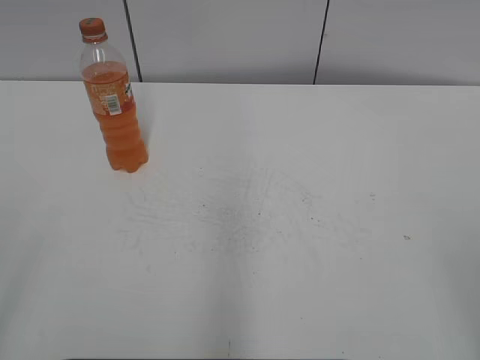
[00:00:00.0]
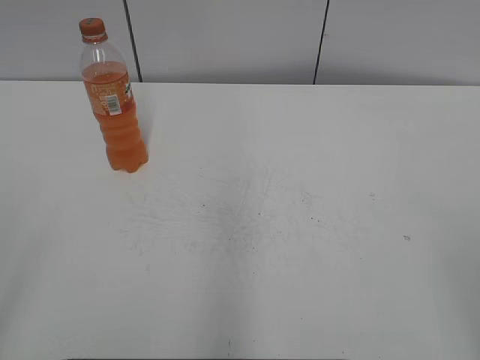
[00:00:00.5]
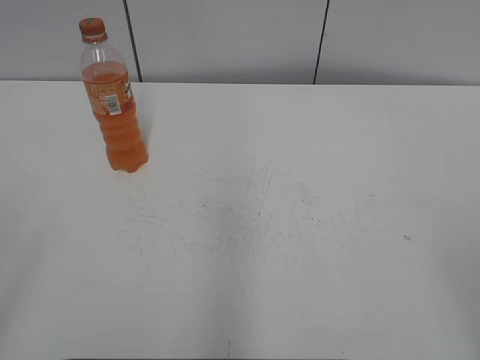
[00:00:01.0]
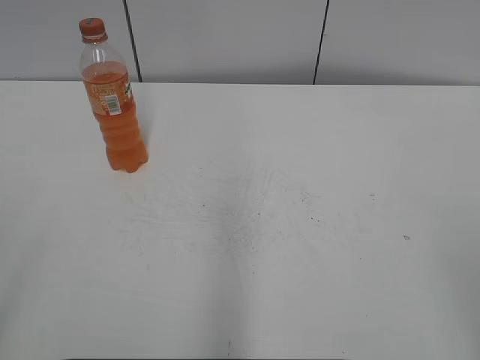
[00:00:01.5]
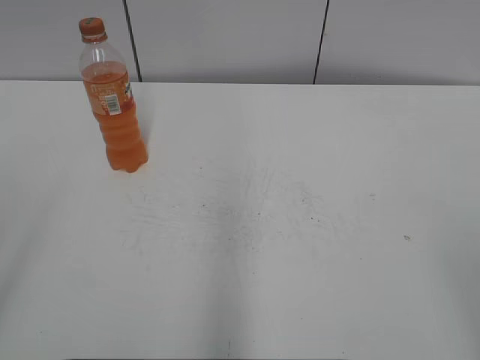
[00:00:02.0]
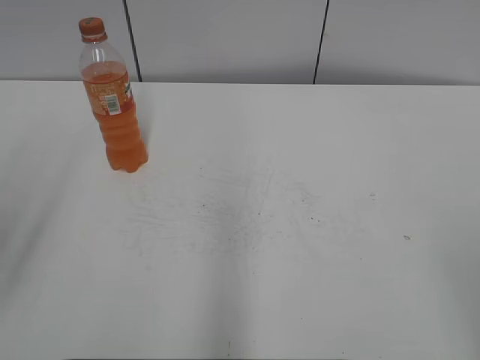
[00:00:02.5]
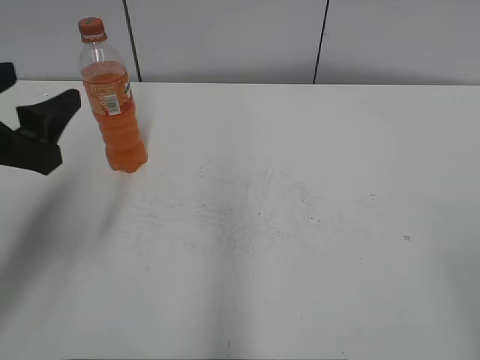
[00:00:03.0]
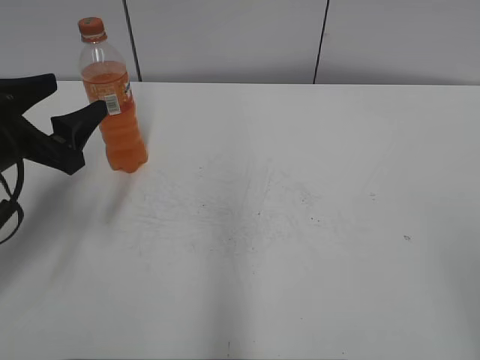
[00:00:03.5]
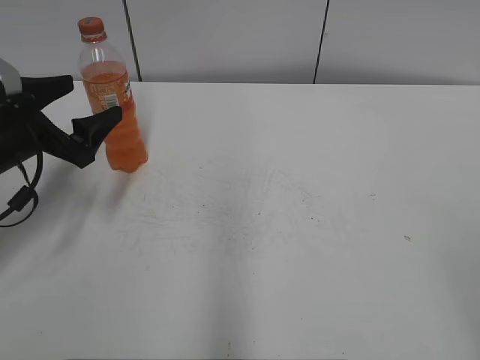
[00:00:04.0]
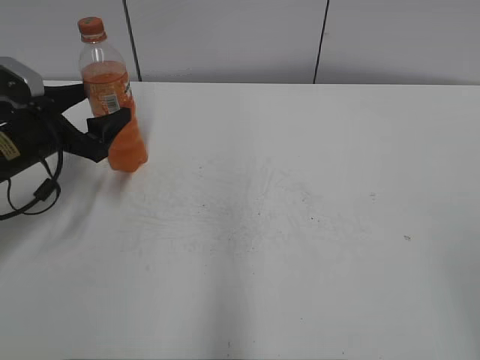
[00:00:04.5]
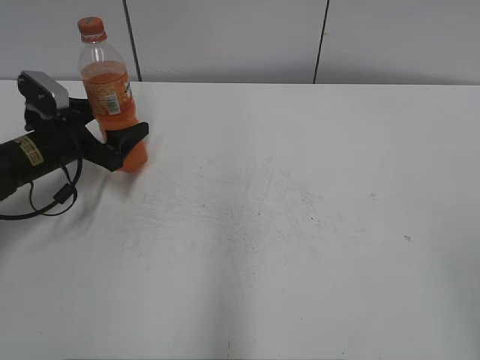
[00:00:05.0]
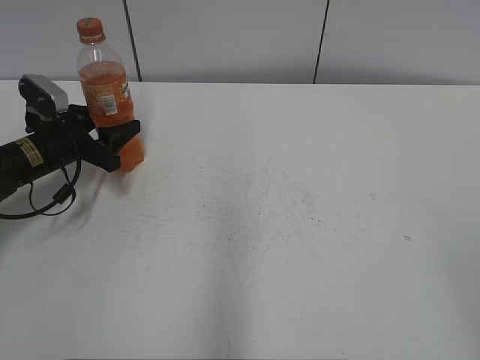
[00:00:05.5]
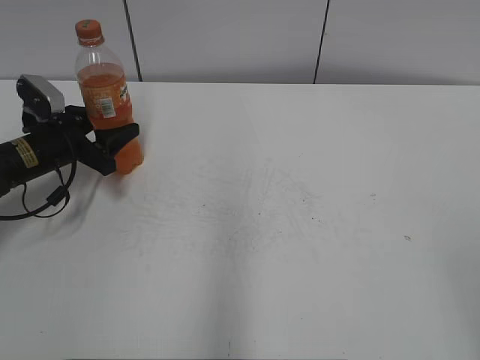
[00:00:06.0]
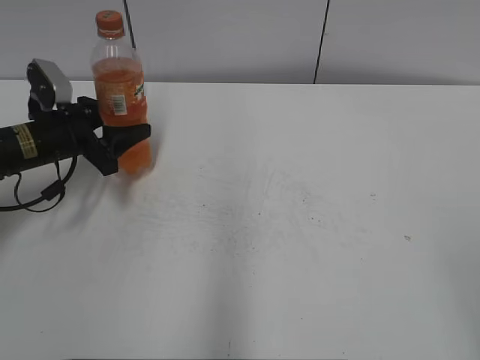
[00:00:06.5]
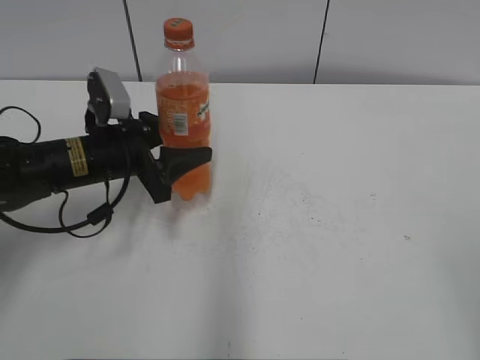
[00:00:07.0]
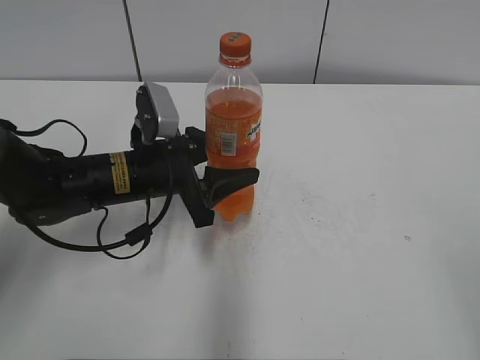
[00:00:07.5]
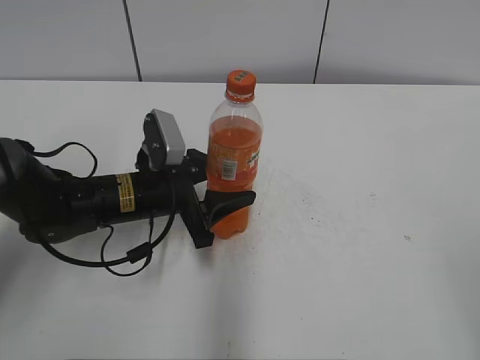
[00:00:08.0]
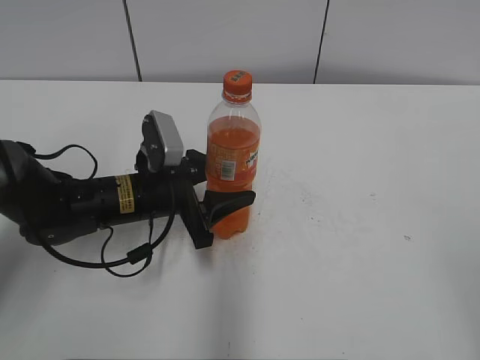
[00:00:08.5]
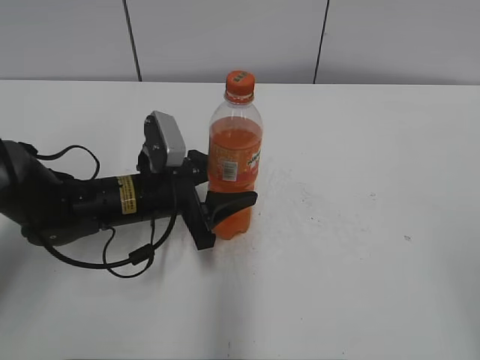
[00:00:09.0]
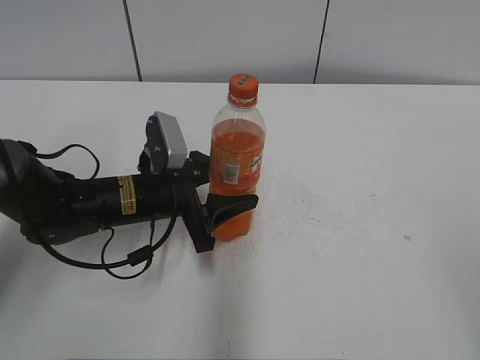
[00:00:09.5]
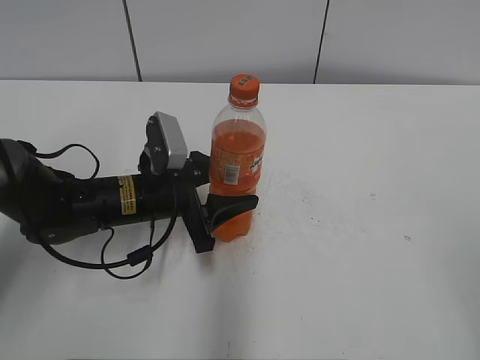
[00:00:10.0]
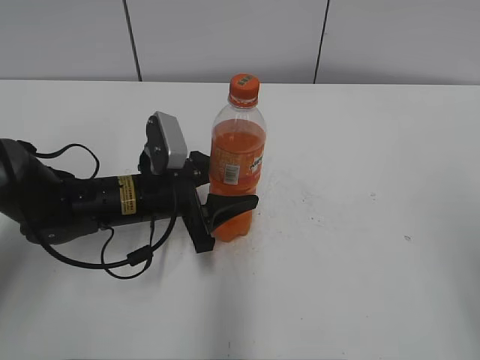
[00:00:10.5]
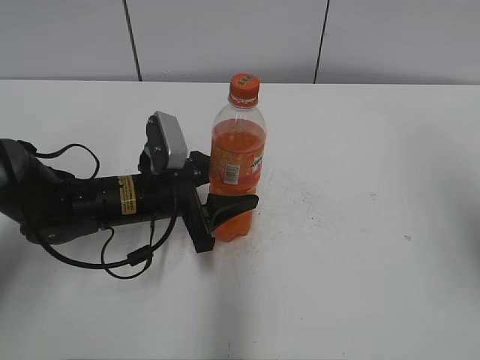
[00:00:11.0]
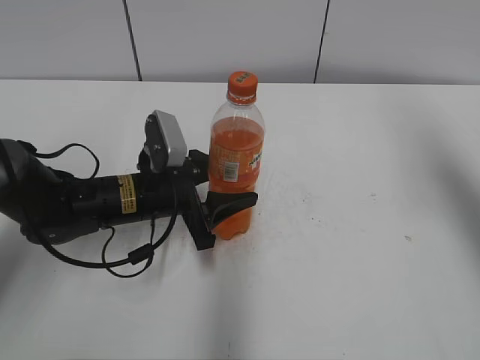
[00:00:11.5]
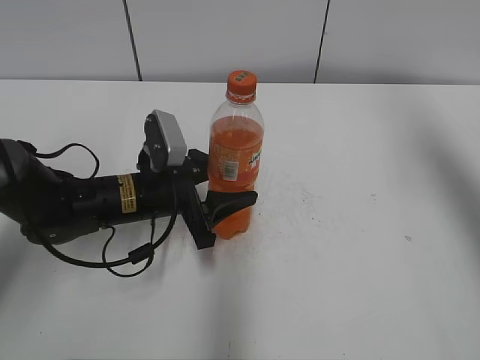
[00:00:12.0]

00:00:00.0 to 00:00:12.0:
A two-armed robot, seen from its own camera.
Step, 00:00:00.0 to 00:00:05.5: Grab the Mirinda with the left hand.
Step, 00:00:06.0 to 00:00:08.5: Move the Mirinda from left to right.
00:00:02.0 to 00:00:04.0: The left gripper heads forward and downward, covering roughly 35 cm, and opens.
00:00:04.0 to 00:00:06.0: The left gripper travels forward and downward by about 10 cm, and closes.
00:00:06.0 to 00:00:08.0: The left gripper shifts some 15 cm to the right and backward.
00:00:08.0 to 00:00:10.0: Both grippers stay about where they are.
00:00:10.0 to 00:00:12.0: The right gripper goes about 35 cm forward.

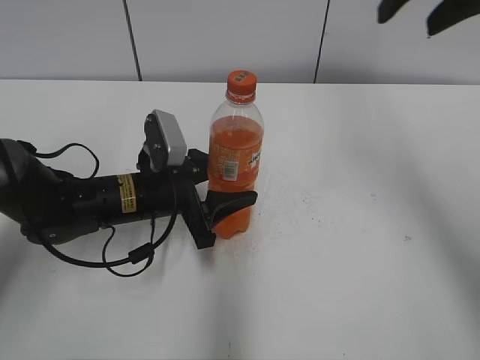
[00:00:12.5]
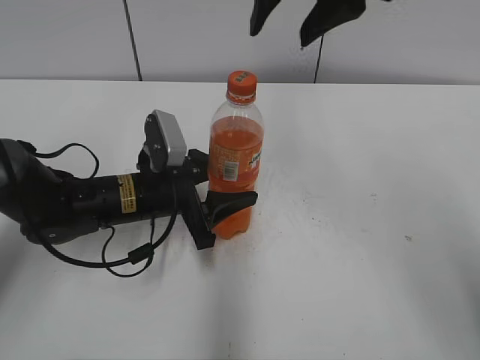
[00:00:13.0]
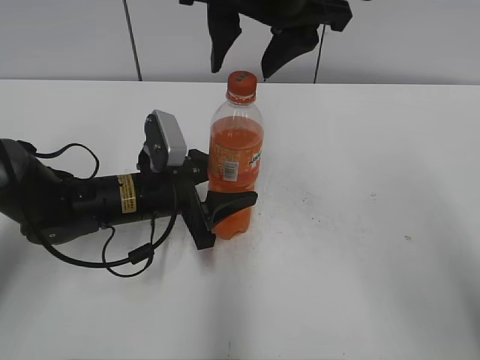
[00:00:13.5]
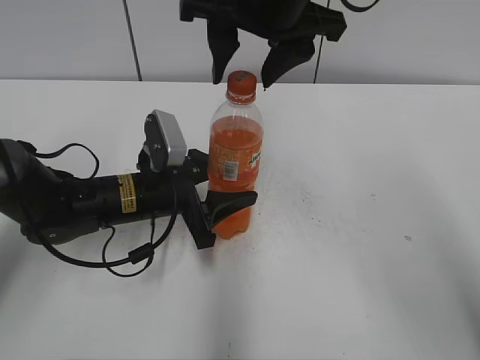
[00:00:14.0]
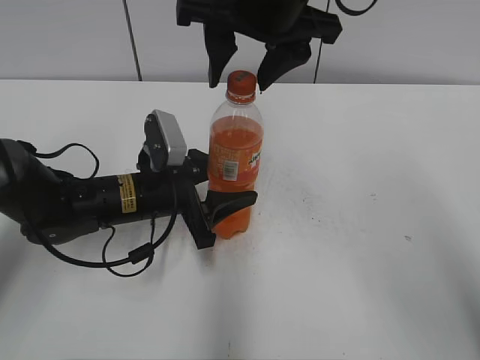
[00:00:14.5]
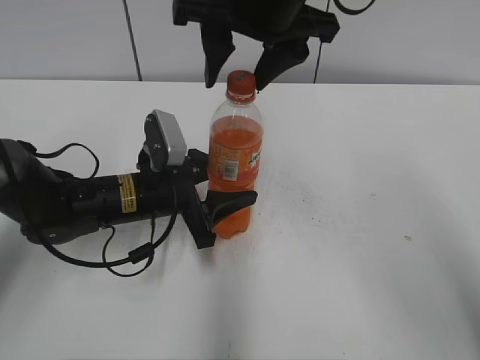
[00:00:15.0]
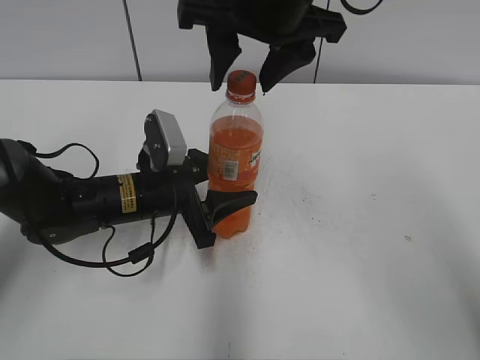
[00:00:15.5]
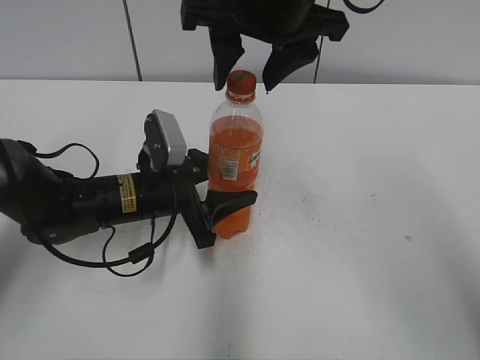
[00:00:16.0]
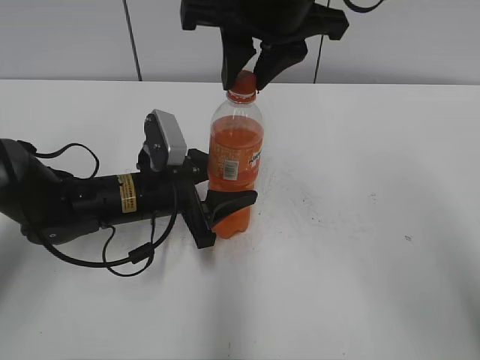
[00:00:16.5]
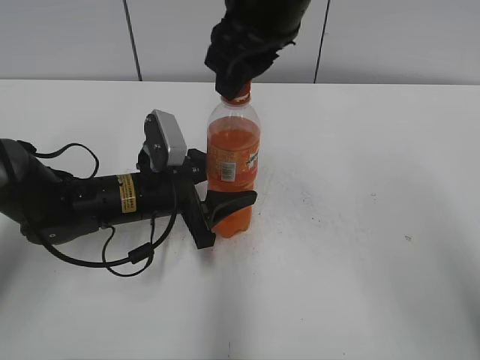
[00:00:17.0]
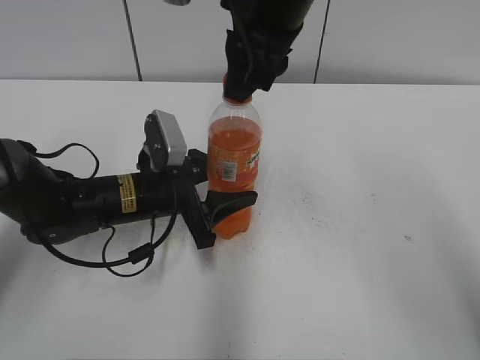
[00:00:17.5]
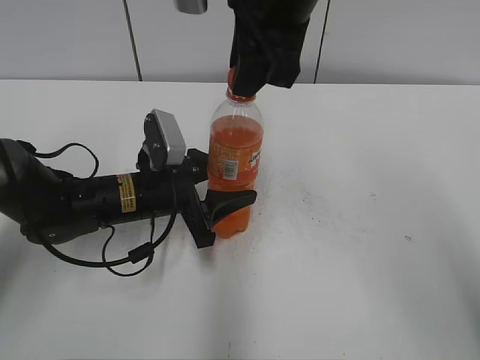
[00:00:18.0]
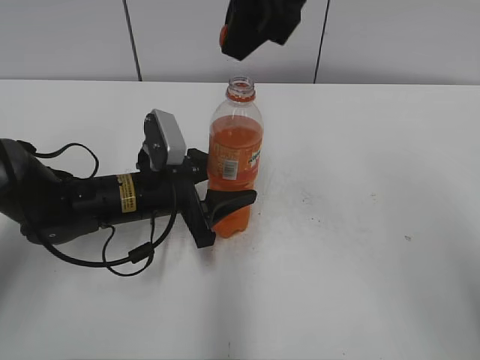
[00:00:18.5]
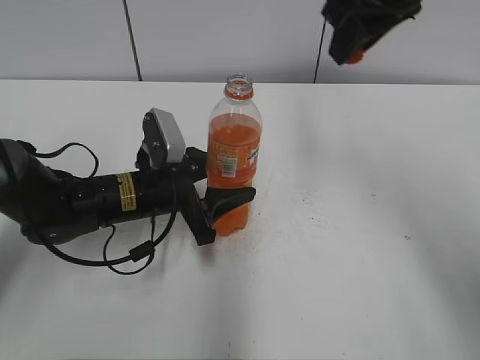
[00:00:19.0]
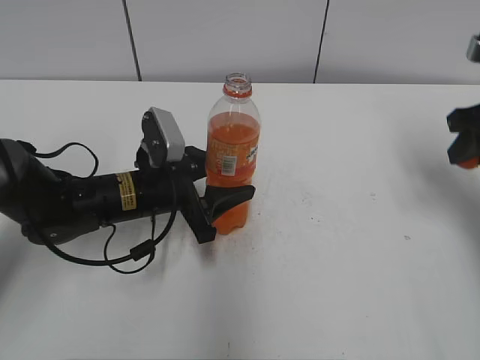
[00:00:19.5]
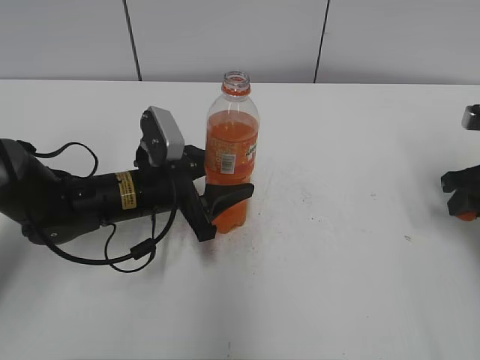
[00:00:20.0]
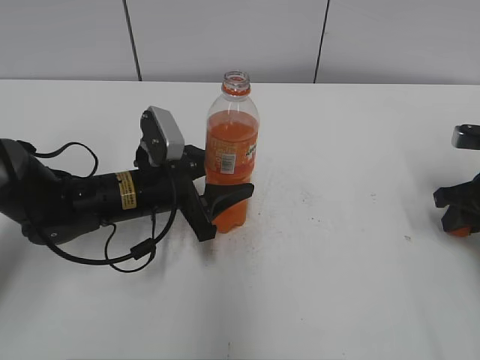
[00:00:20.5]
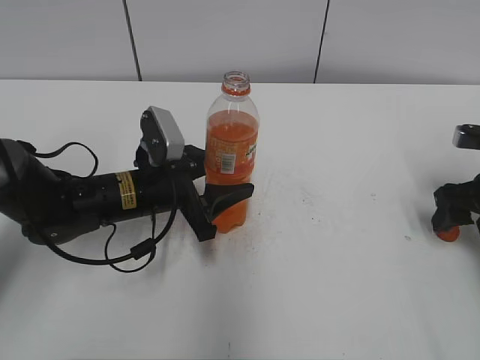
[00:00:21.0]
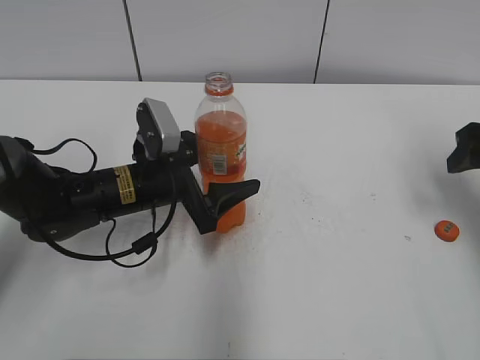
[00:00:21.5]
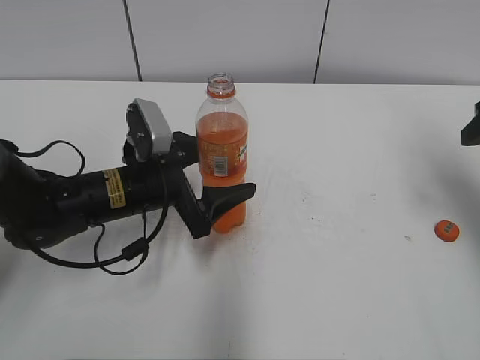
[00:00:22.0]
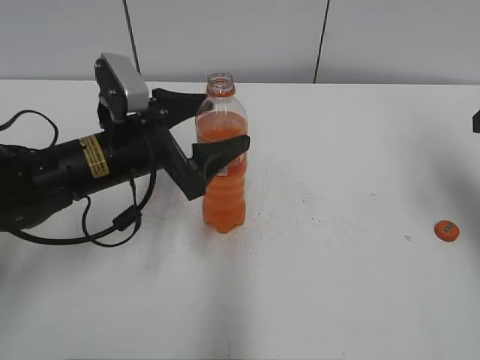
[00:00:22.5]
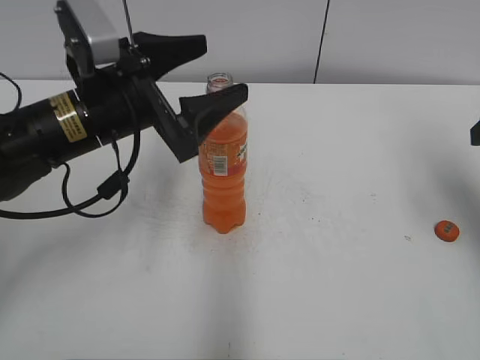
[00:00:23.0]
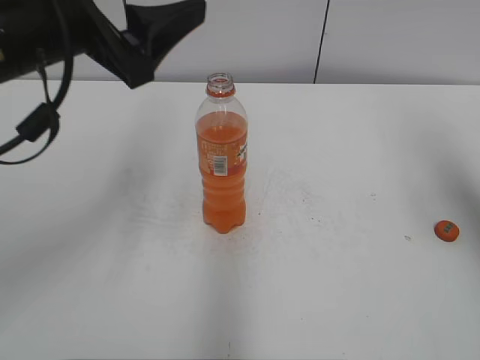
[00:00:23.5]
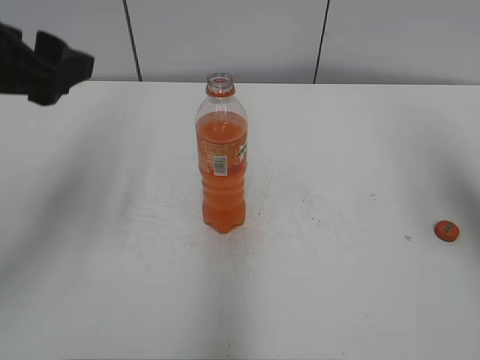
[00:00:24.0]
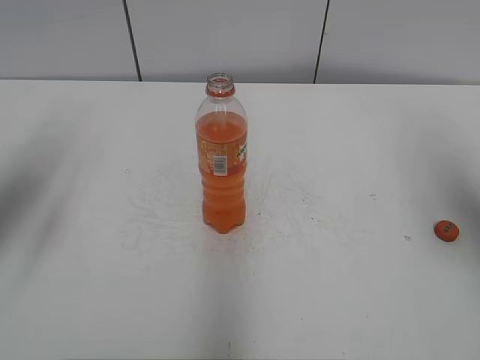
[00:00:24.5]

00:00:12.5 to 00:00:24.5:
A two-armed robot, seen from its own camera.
Step, 00:00:12.5 to 00:00:18.0: Twist the bottle cap with the right hand.
Step, 00:00:18.5 to 00:00:20.5: Place the bottle cap on the right.
00:00:12.5 to 00:00:14.5: The right gripper is displaced to the left by approximately 15 cm.
00:00:14.5 to 00:00:16.5: The right gripper closes up.
00:00:18.5 to 00:00:20.5: The right gripper heads to the right and downward, covering approximately 40 cm.
00:00:20.5 to 00:00:22.5: The left gripper shifts roughly 5 cm upward, and opens its fingers; the right gripper travels upward by approximately 15 cm, and opens.
00:00:22.5 to 00:00:24.5: The left gripper moves to the left and upward, roughly 20 cm, while the right gripper heads upward, covering approximately 5 cm.

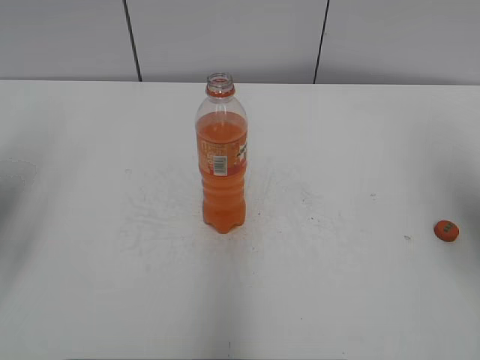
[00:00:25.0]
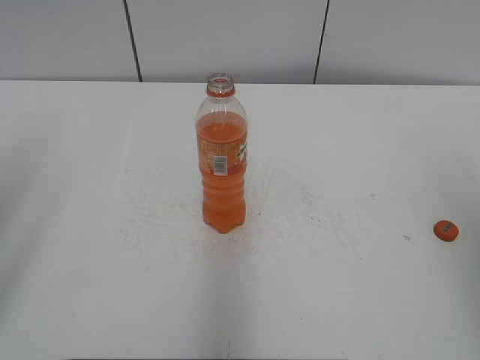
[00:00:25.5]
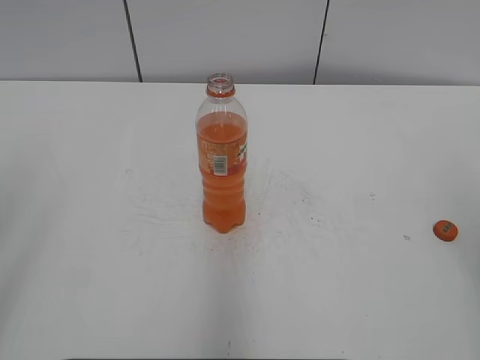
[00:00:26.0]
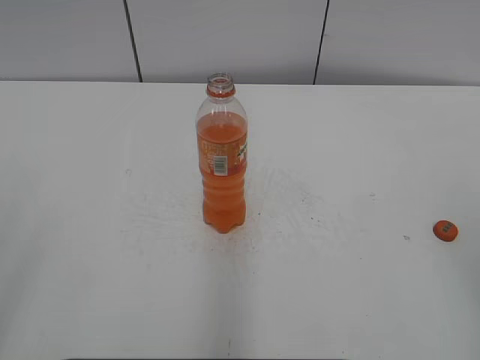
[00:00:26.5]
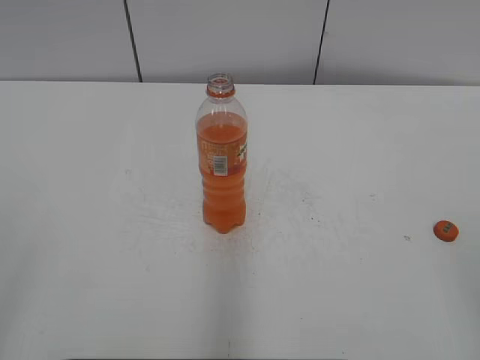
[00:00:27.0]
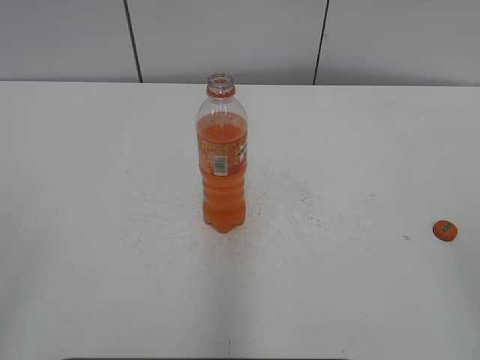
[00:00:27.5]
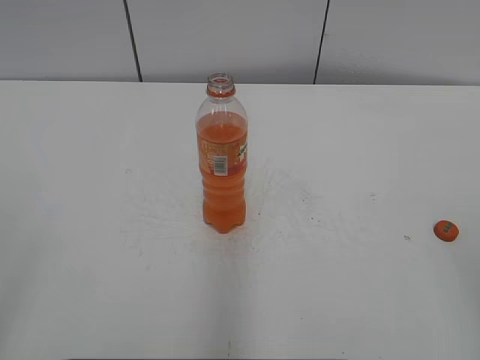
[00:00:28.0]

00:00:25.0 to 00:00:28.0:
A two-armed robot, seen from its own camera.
00:00:25.0 to 00:00:26.5: The two grippers go some 20 cm backward.
